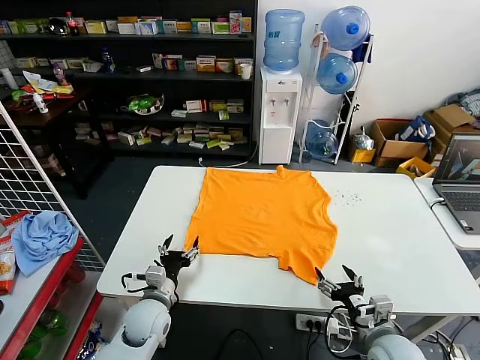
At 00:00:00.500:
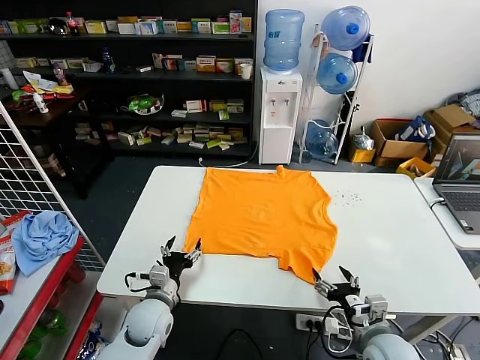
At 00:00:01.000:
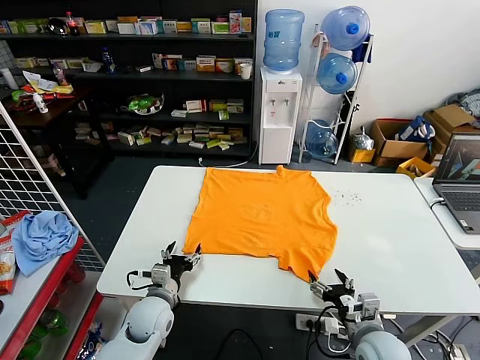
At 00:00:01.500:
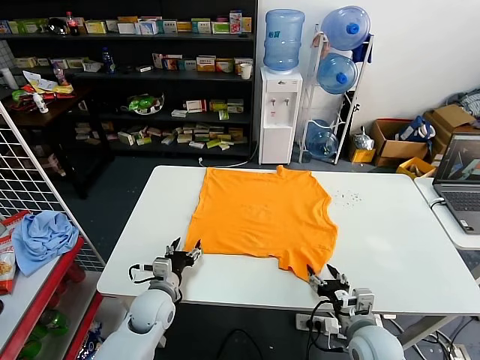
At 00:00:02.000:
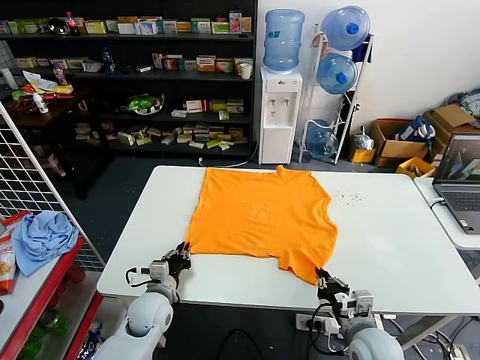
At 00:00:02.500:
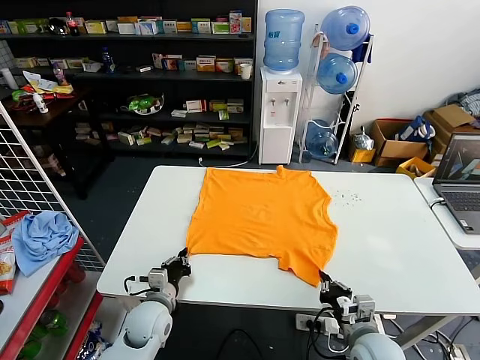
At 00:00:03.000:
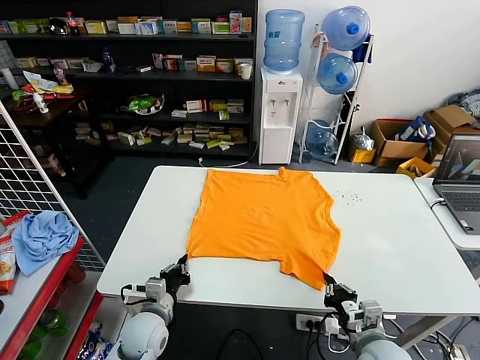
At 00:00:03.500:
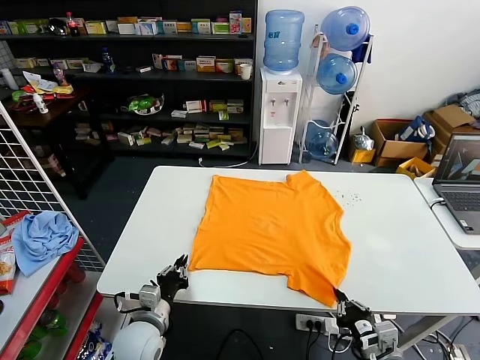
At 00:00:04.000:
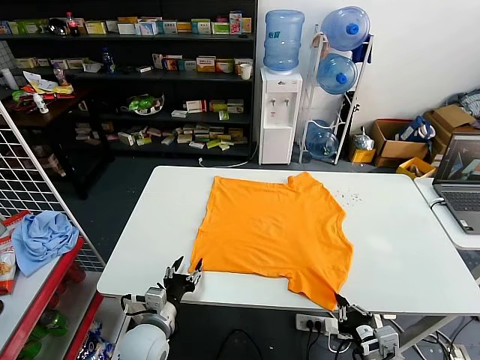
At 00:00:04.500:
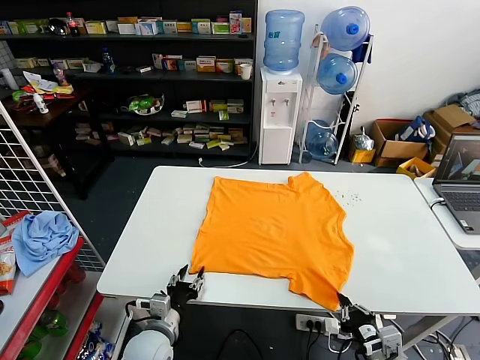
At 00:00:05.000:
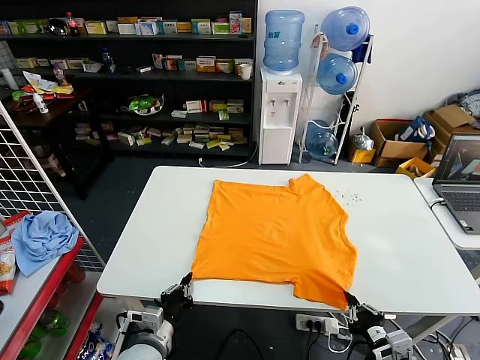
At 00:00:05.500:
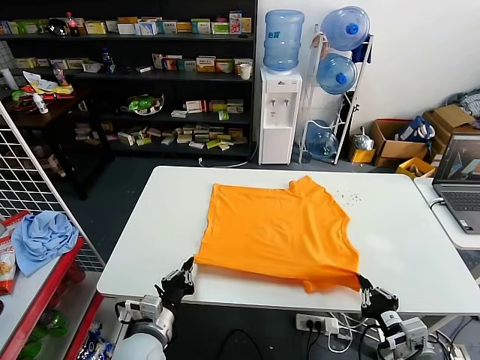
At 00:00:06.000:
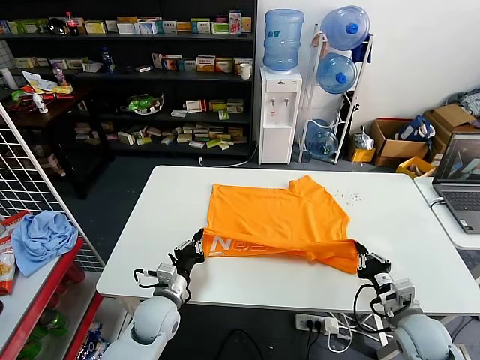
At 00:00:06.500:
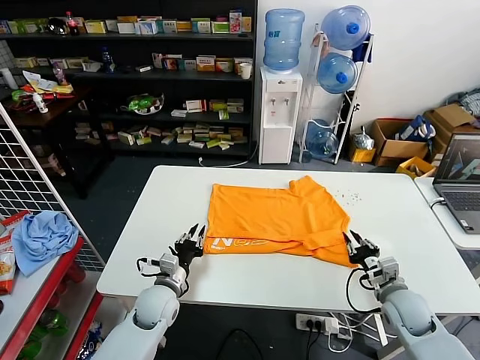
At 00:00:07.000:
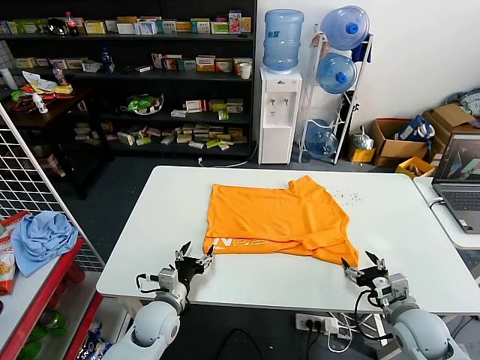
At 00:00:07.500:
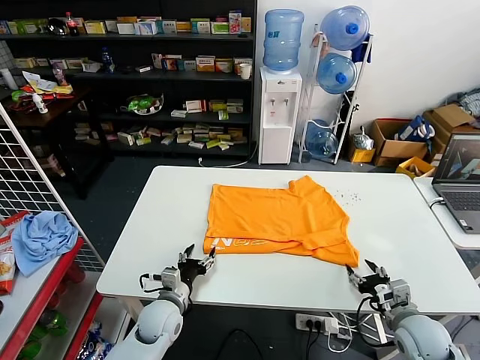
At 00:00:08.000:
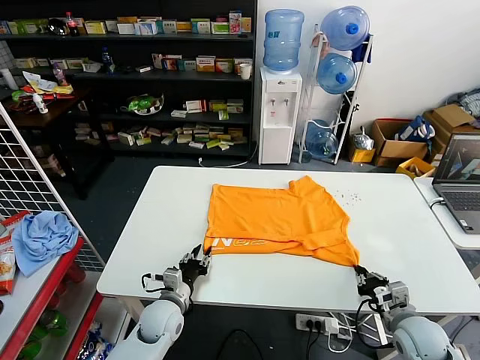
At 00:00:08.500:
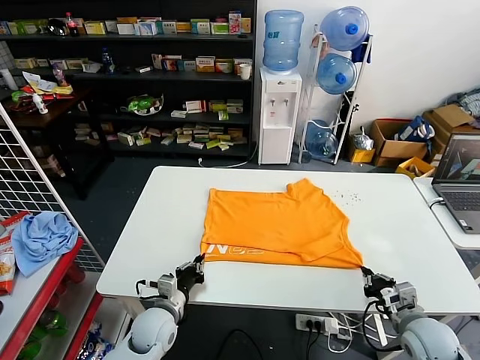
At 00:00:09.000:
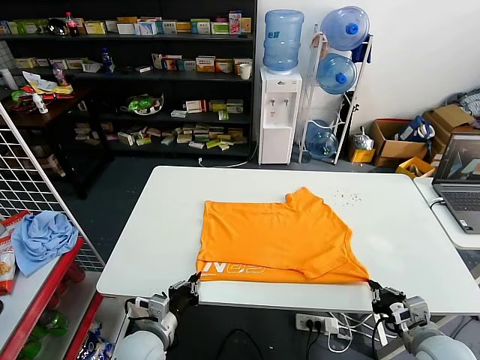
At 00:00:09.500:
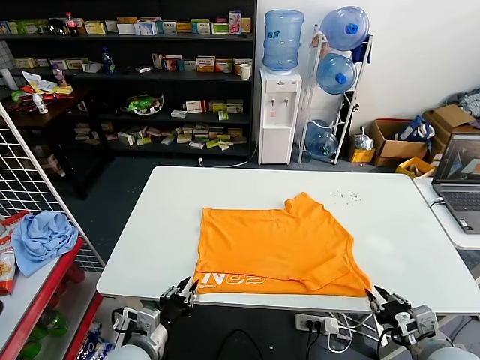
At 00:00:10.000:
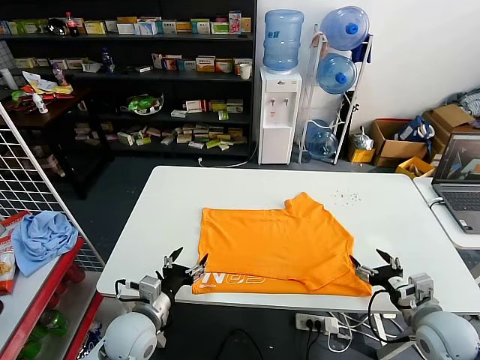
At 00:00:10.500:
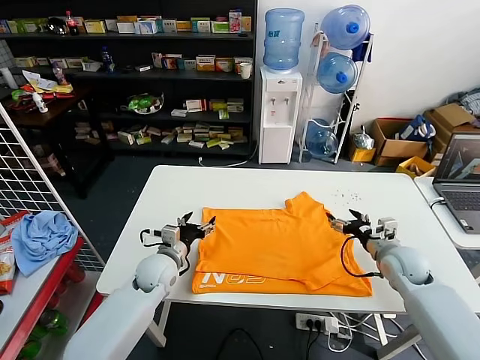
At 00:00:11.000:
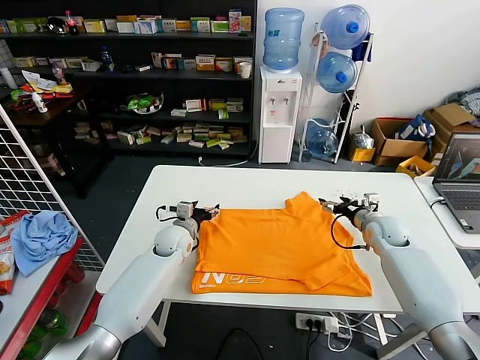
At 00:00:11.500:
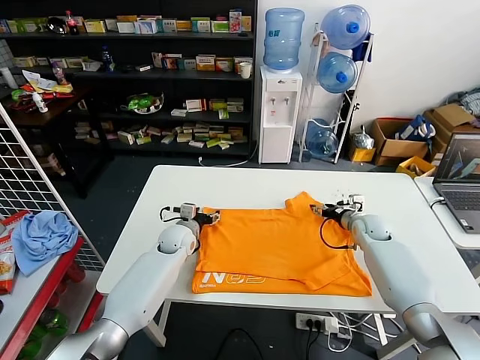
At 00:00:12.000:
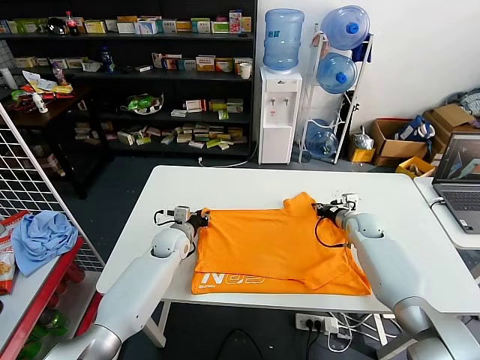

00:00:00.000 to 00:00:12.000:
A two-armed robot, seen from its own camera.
Task of the whole recording: fold and organize the clothes.
Step, 00:00:00.000 to 00:00:05.000: use both grippers simultaneously to clamp the lower edge of the clothing fabric.
Step, 00:00:05.500 to 00:00:06.500: use both grippers to drag the lower edge of the fabric forward and fold it over the upper edge.
Step, 00:00:07.000 to 00:00:09.500: Drag the clothes downward with both gripper.
00:00:02.000 to 00:00:04.000: Both grippers travel together backward, about 10 cm. The left gripper opens up.
00:00:04.000 to 00:00:06.000: The left gripper moves forward, roughly 5 cm, and closes up, while the right gripper goes about 15 cm forward and to the right.
00:00:06.000 to 00:00:08.000: The left gripper opens, while the right gripper opens, then closes again.
00:00:08.000 to 00:00:10.000: The left gripper heads upward and backward, covering roughly 10 cm, and opens up. The right gripper is displaced upward by some 5 cm, and opens.
00:00:10.000 to 00:00:12.000: The two grippers go roughly 25 cm forward. The right gripper closes; the left gripper closes.

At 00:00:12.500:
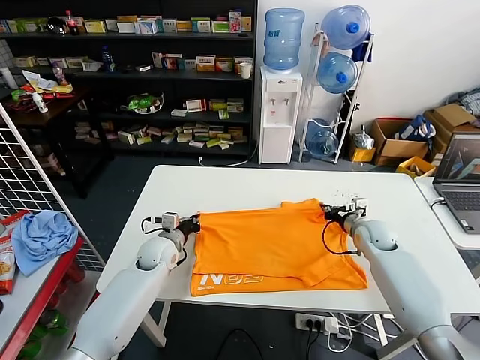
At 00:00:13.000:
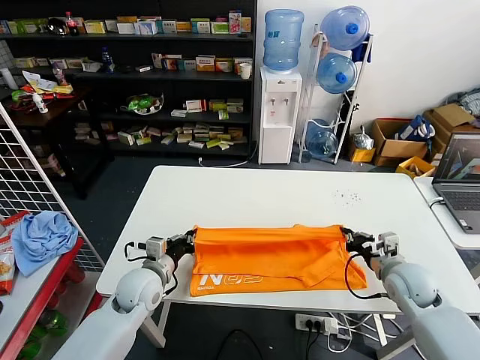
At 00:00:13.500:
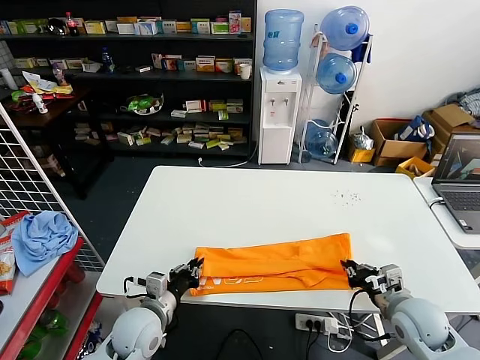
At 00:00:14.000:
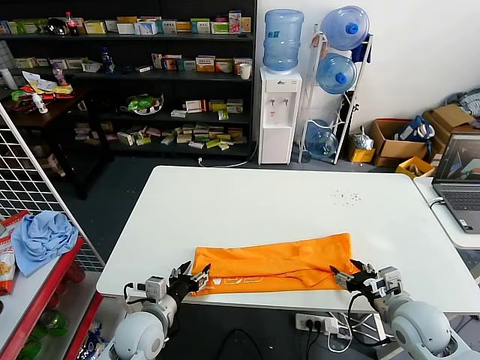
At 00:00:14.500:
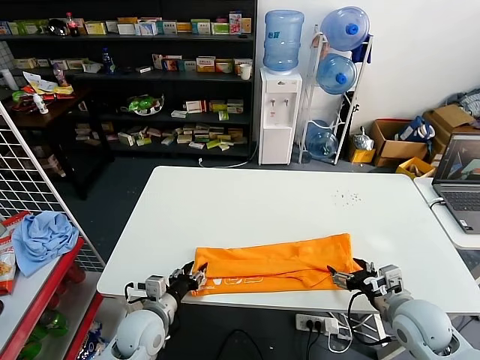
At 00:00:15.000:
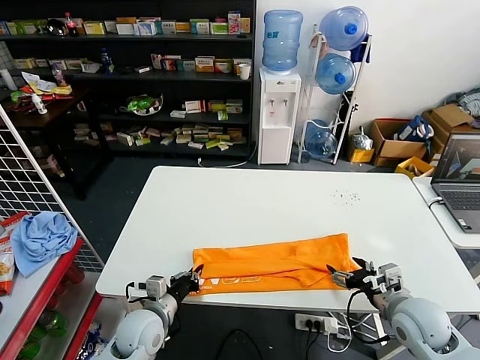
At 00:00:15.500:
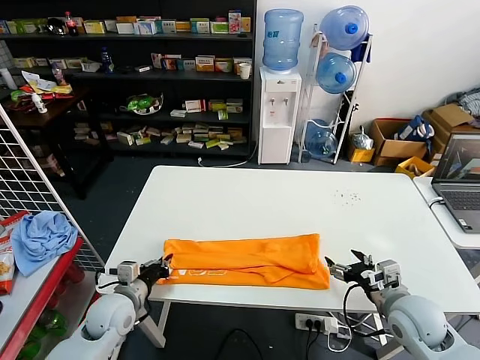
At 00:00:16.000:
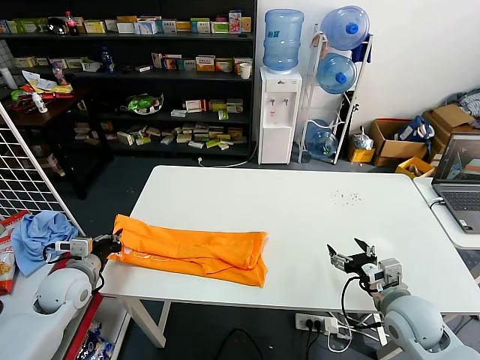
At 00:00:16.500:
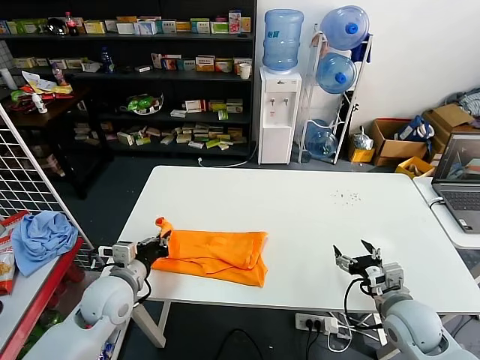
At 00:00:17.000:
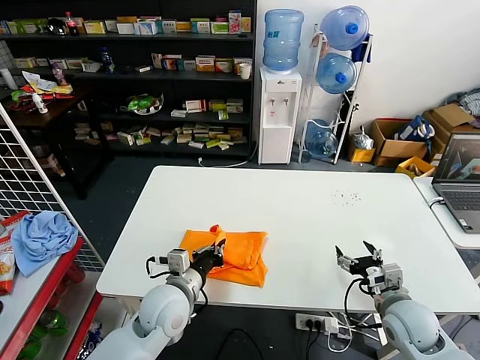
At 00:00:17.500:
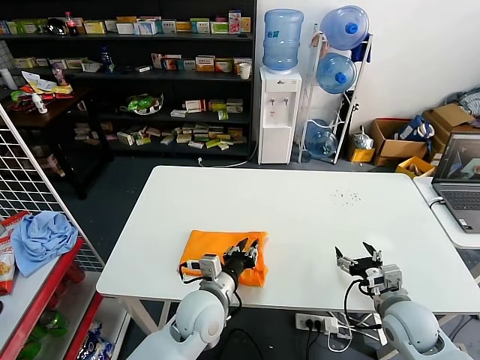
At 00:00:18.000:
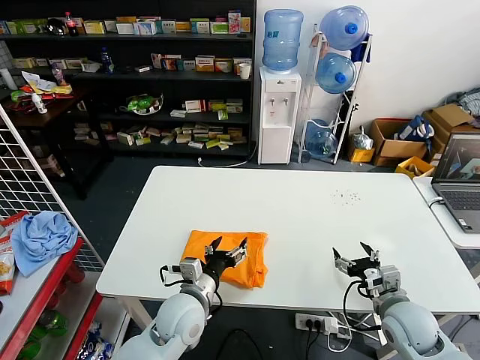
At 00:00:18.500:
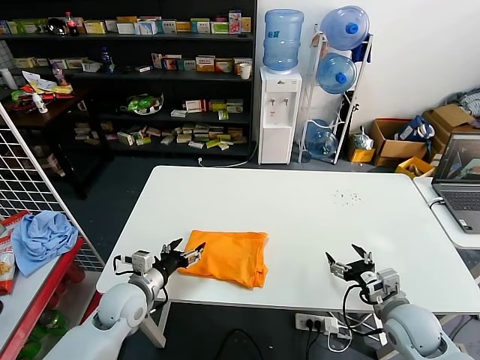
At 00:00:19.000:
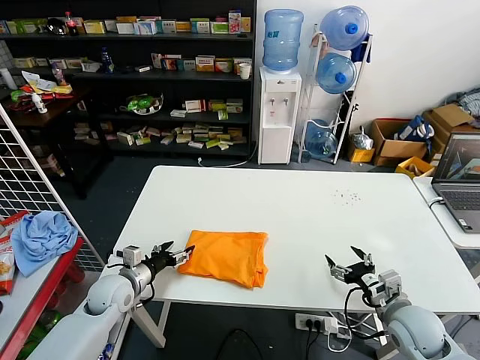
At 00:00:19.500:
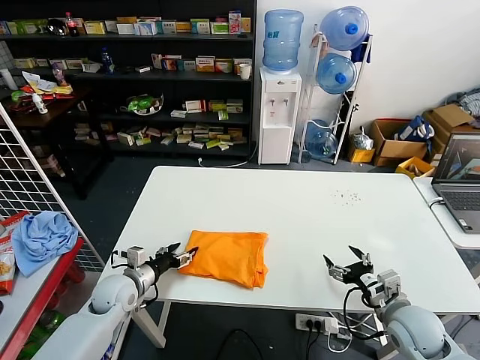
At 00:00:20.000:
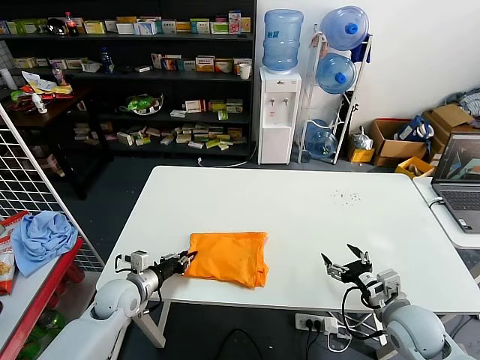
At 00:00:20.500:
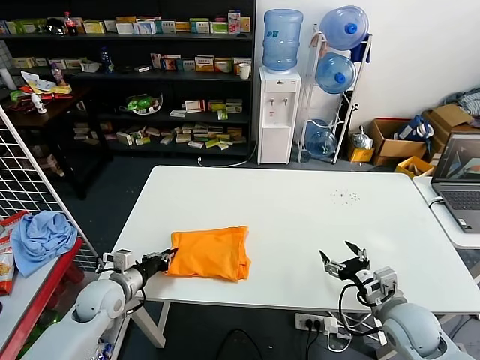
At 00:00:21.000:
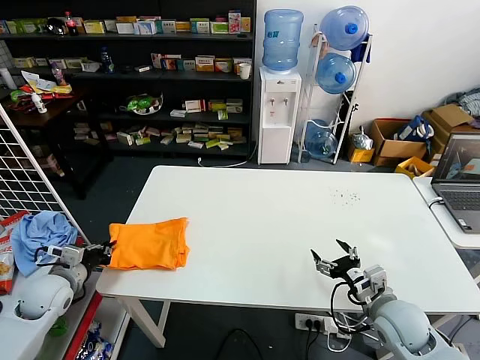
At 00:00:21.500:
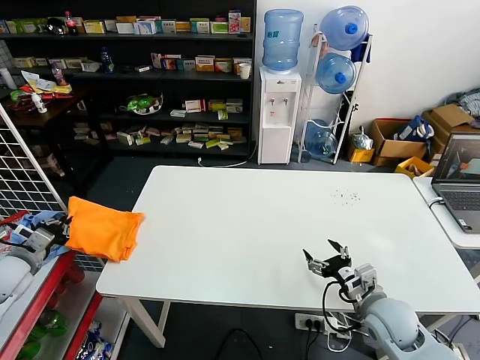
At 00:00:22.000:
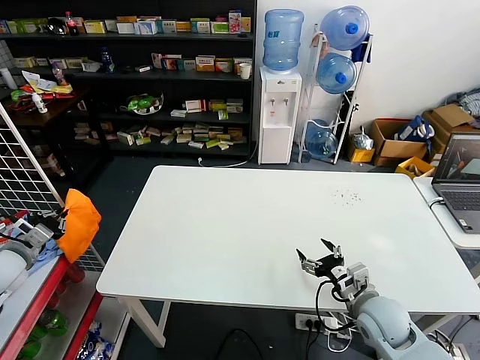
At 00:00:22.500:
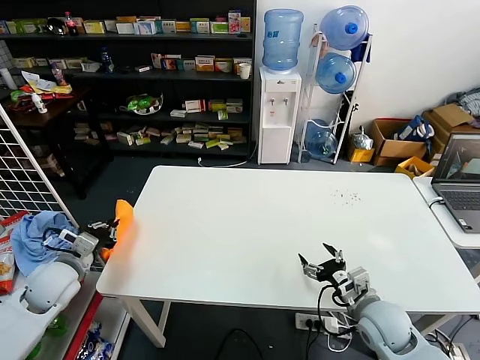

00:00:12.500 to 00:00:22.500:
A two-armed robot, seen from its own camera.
Task of the whole recording: fold and organize the clothes.
Step, 00:00:12.500 to 00:00:14.000: use both grippers to drag the upper edge of the fabric backward and fold it over the lower edge.
Step, 00:00:14.500 to 00:00:15.000: use the left gripper to clamp the left edge of the fabric.
Step, 00:00:15.500 to 00:00:17.500: use the left gripper to drag the left edge of the fabric to the left and folds it over the right edge.
00:00:12.500 to 00:00:14.500: Both grippers move backward, approximately 20 cm. The right gripper opens up. Meanwhile the left gripper opens.
00:00:14.500 to 00:00:16.500: The left gripper shifts approximately 10 cm upward and to the left, and closes up.
00:00:16.500 to 00:00:18.500: The left gripper is displaced downward by roughly 5 cm, moves some 20 cm to the right and comes back, and opens.
00:00:18.500 to 00:00:20.500: The left gripper heads to the left, covering about 5 cm, and closes.
00:00:20.500 to 00:00:22.500: The left gripper moves upward and to the left, approximately 10 cm.

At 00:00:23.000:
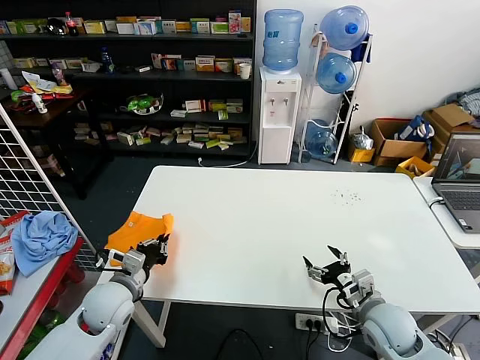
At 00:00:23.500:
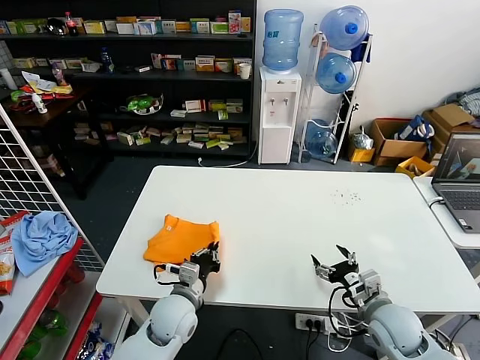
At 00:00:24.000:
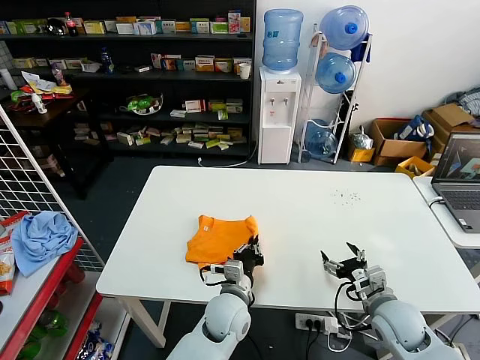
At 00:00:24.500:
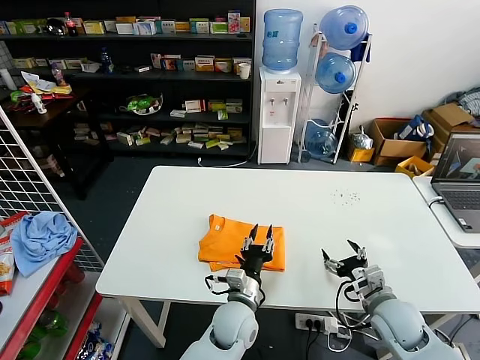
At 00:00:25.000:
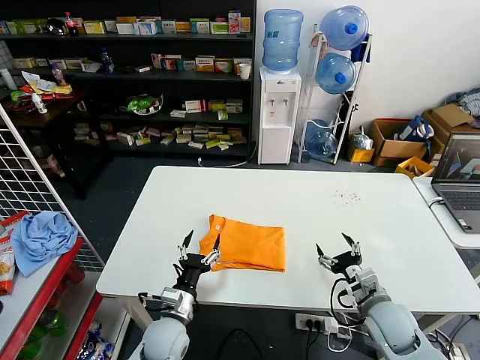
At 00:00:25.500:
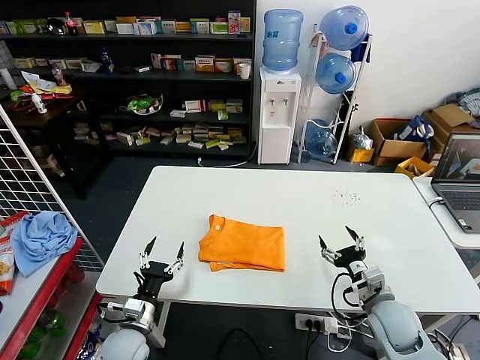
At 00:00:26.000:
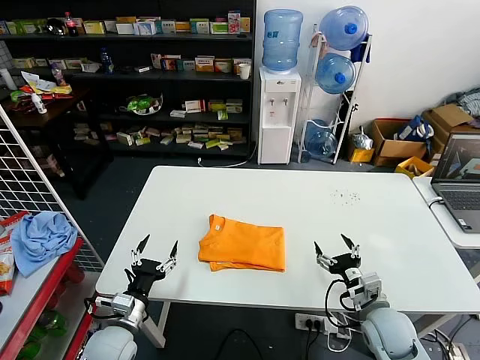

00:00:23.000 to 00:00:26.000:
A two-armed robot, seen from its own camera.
Task of the whole recording: fold and organize the clothes.
00:00:23.000 to 00:00:24.500: The left gripper travels to the right by some 30 cm, and opens.
00:00:24.500 to 00:00:26.000: The left gripper moves to the left, some 25 cm, and opens.
